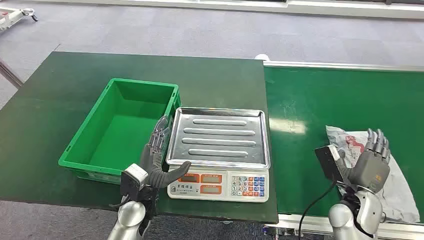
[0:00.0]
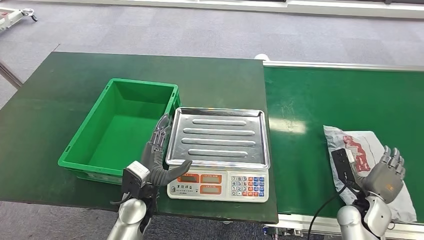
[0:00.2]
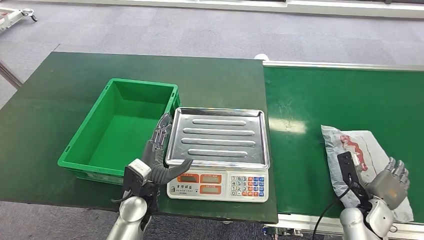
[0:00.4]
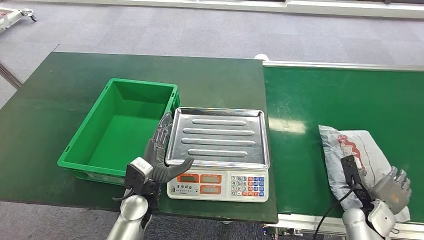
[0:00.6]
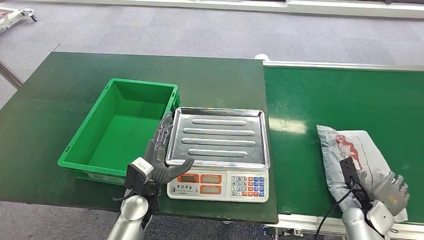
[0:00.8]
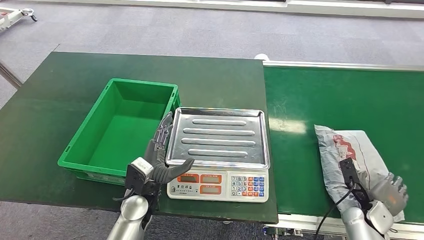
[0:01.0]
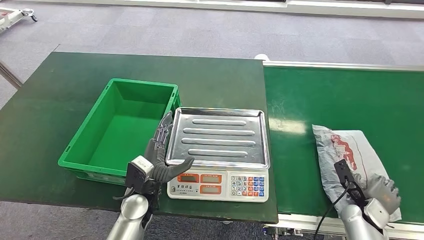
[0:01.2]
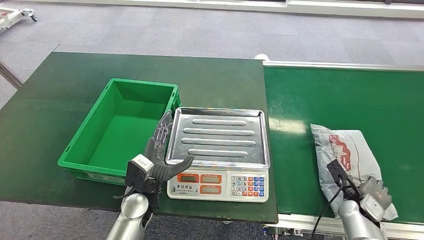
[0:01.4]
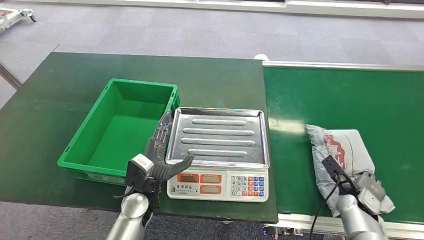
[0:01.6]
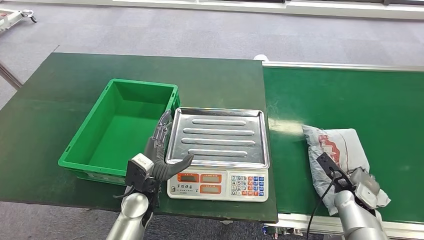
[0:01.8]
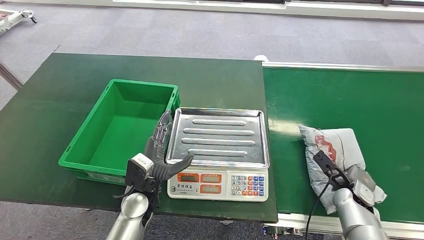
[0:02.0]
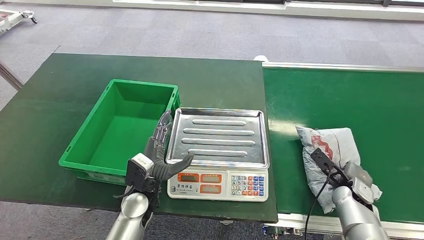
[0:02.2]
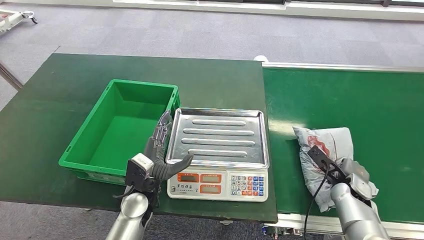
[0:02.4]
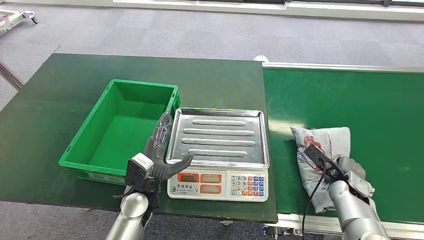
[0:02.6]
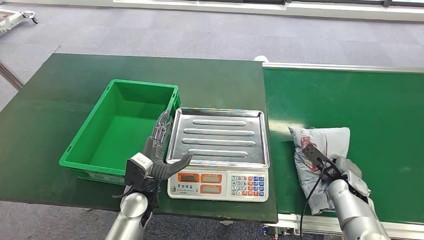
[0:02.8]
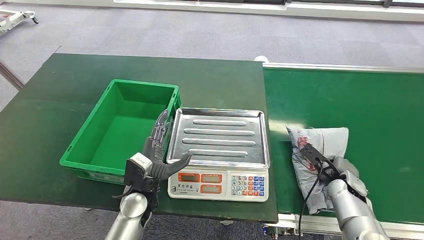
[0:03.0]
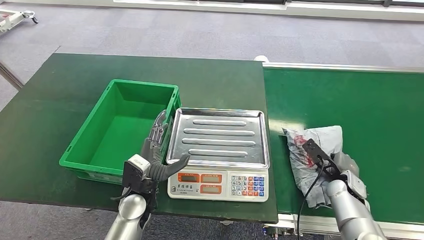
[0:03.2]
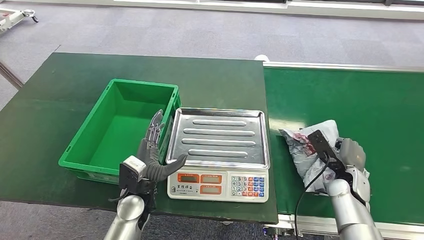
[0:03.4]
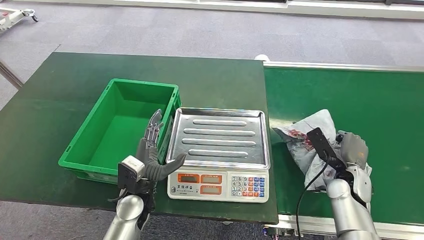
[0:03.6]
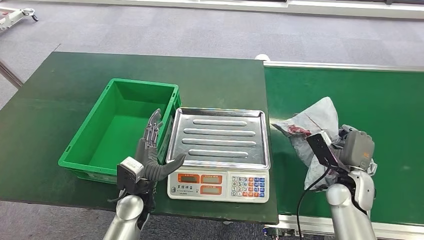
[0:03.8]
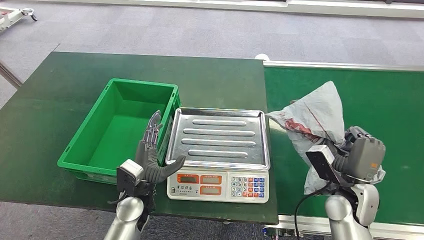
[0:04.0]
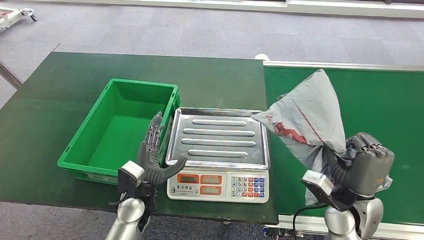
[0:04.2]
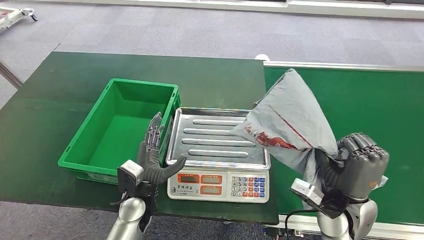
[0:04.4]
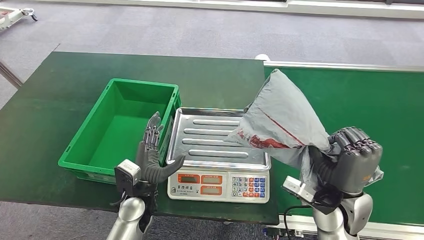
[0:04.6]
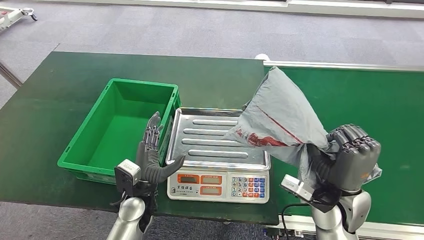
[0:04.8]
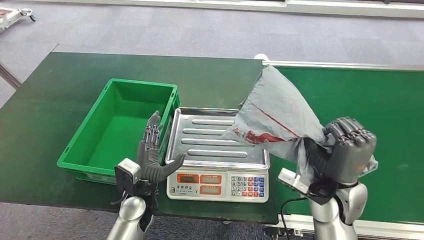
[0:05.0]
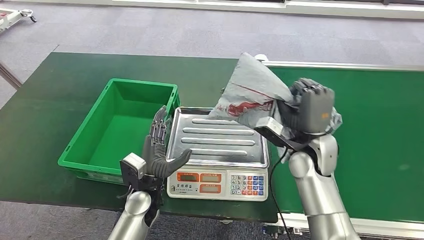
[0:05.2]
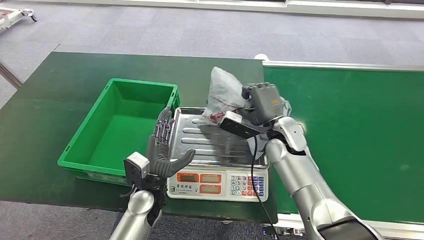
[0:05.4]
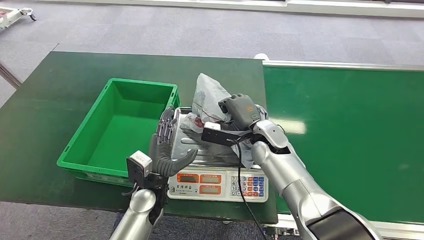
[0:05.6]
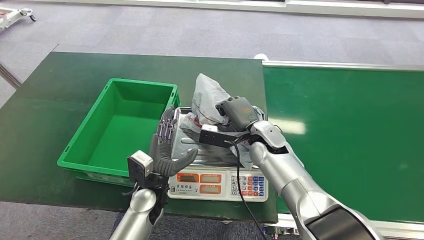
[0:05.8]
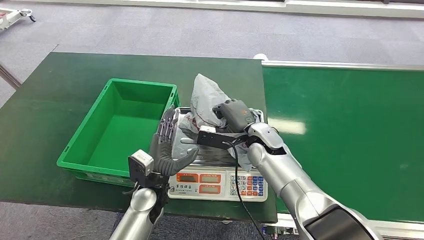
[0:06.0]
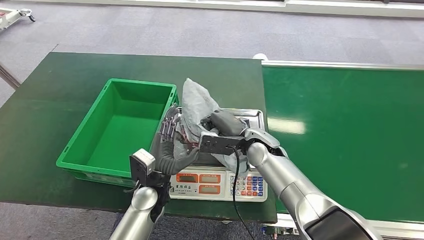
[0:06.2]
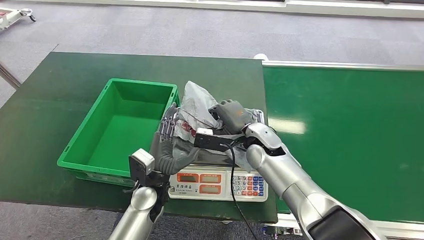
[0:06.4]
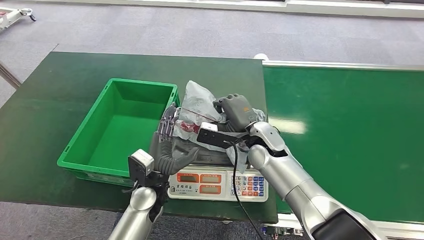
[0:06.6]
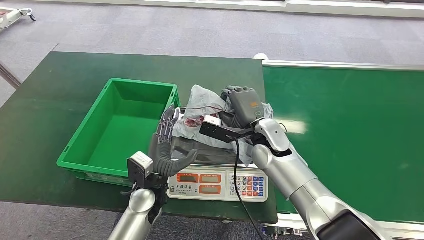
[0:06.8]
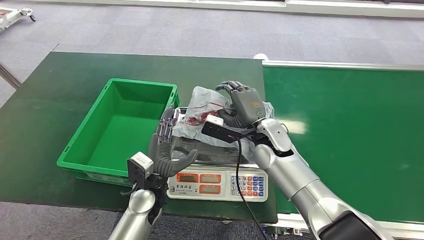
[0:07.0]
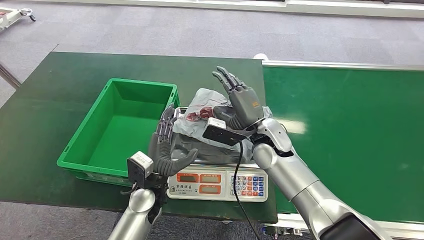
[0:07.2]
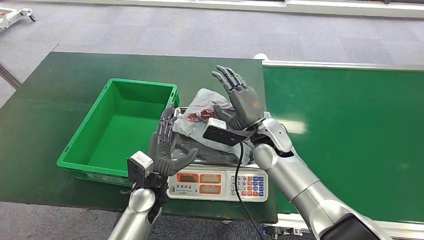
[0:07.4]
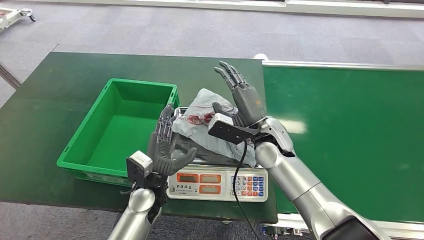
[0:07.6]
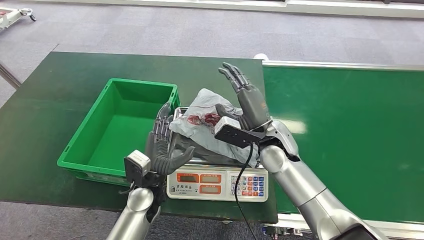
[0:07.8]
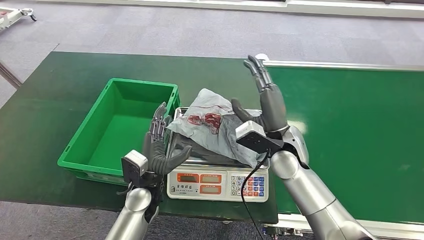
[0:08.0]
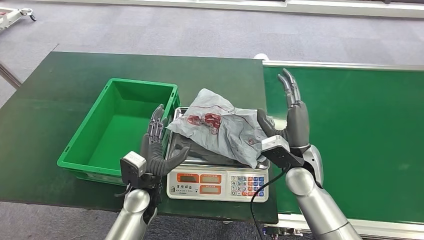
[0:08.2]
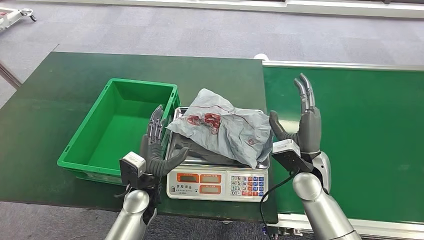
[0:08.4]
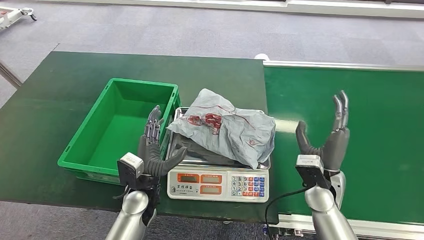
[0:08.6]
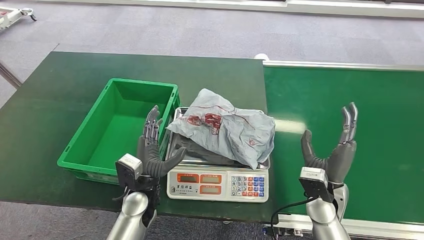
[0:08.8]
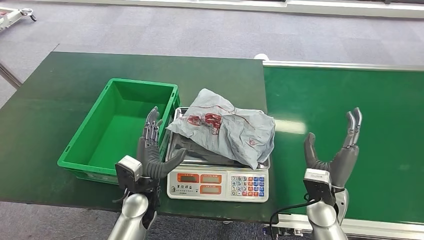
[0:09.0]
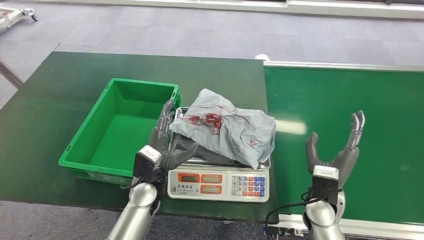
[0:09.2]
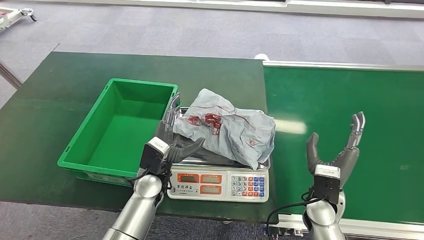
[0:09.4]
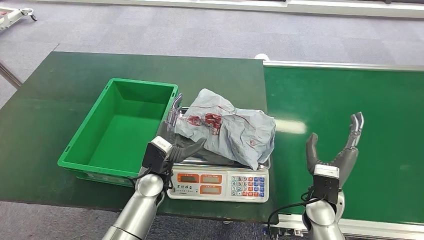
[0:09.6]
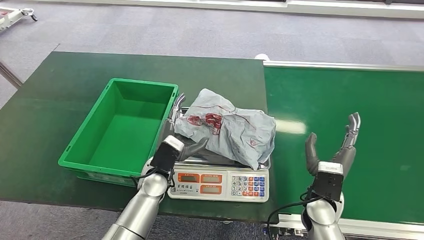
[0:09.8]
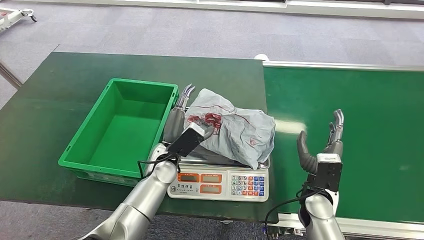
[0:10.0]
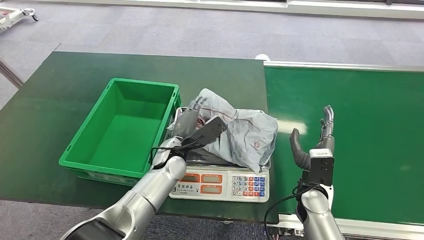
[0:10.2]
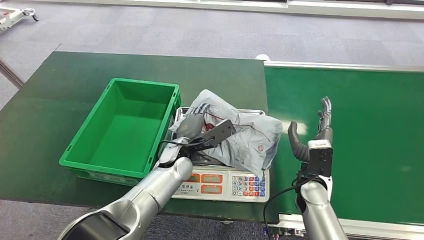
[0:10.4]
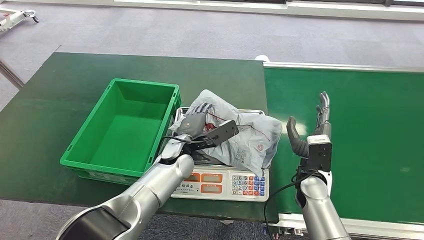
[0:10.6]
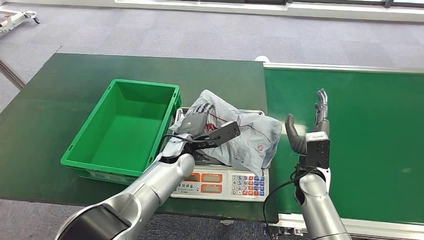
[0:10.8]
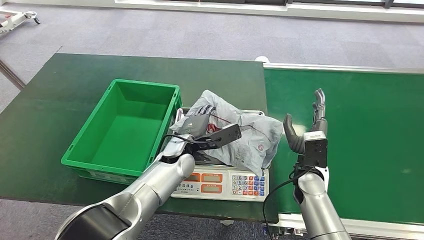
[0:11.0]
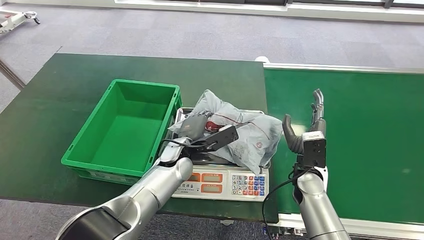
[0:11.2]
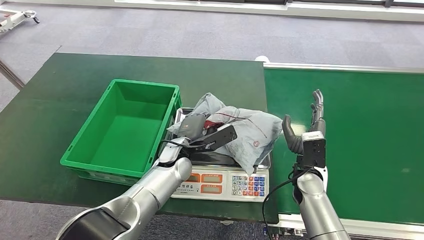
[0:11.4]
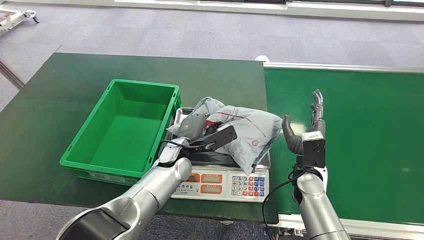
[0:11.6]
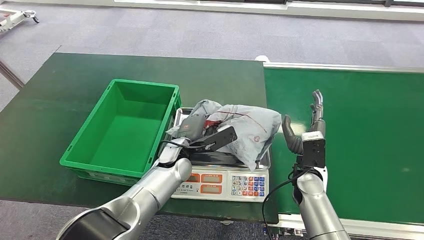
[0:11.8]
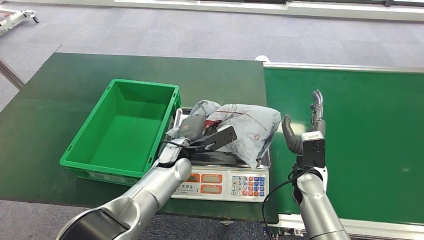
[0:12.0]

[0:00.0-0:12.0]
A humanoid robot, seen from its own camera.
Step, 0:00.0 to 0:04.0: Pick up the package from the conveyor belt.
Step, 0:04.2 to 0:07.8: Place the package onto the inbound machine.
0:01.6 to 0:03.0: The right hand moves roughly 5 cm.
0:07.6 to 0:09.0: The right hand travels to the right, backward and downward by about 20 cm.
0:09.0 to 0:10.4: The left hand goes about 10 cm forward and to the right.
0:10.4 to 0:12.0: There are only small adjustments of the hands.

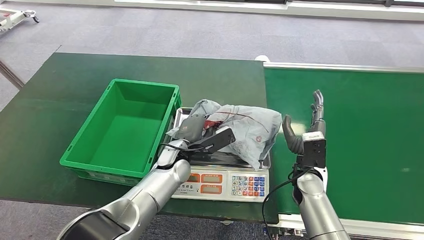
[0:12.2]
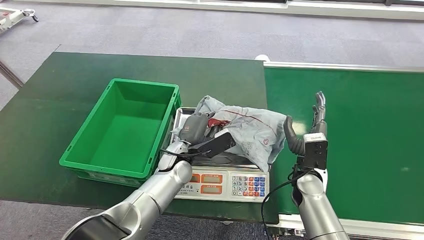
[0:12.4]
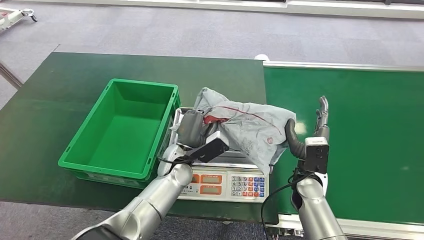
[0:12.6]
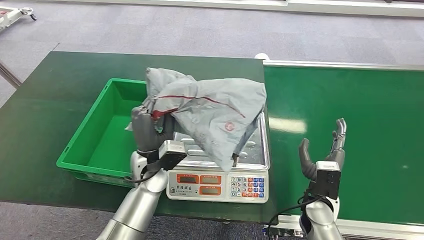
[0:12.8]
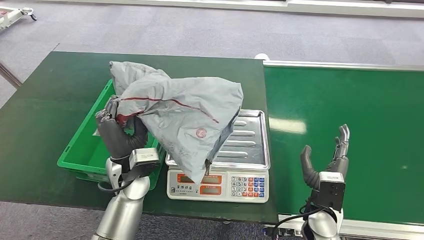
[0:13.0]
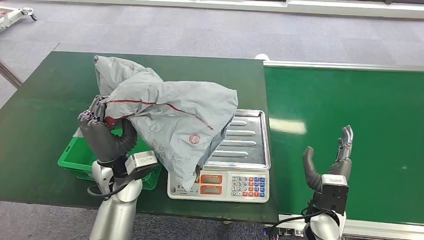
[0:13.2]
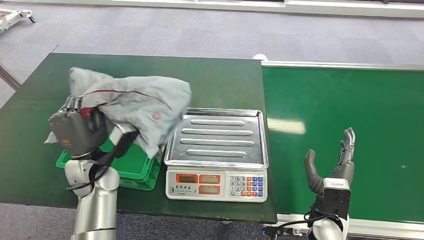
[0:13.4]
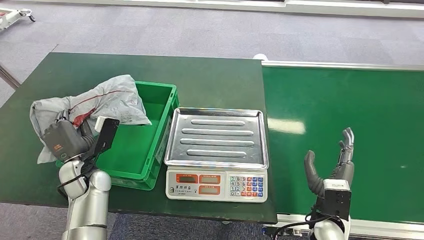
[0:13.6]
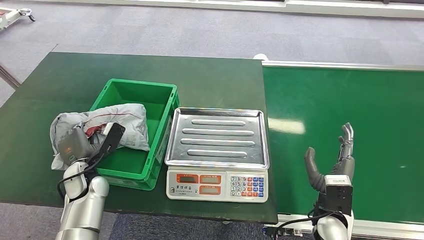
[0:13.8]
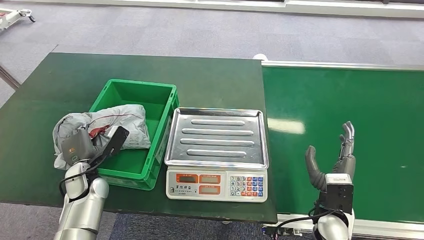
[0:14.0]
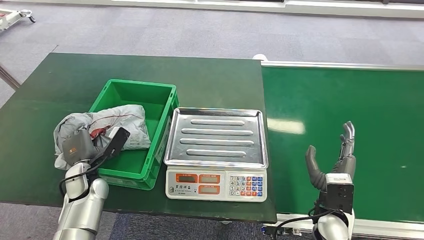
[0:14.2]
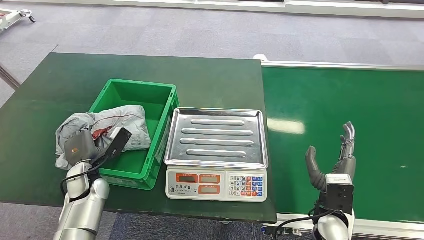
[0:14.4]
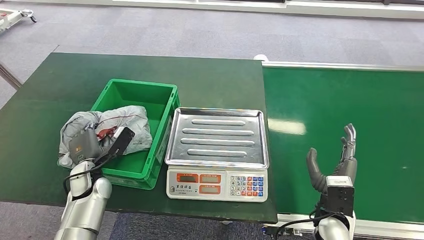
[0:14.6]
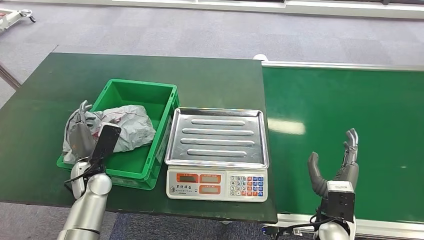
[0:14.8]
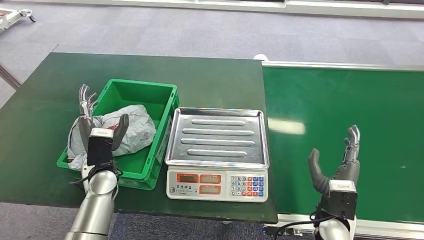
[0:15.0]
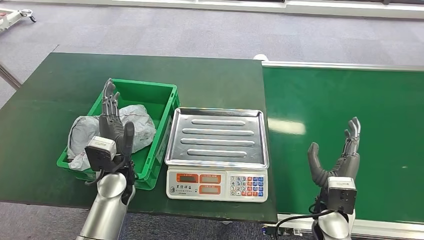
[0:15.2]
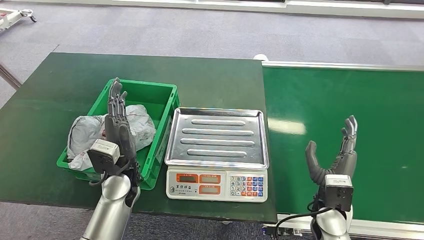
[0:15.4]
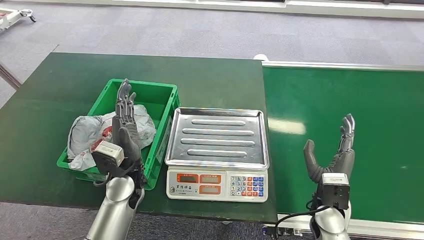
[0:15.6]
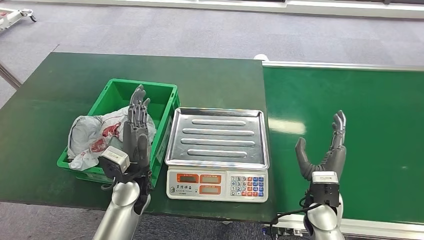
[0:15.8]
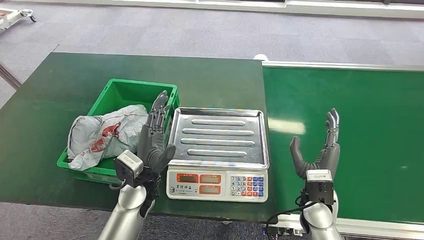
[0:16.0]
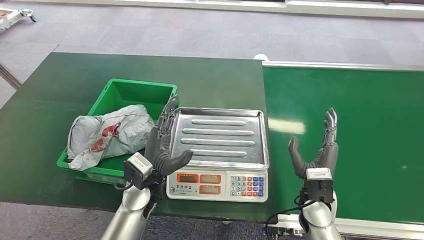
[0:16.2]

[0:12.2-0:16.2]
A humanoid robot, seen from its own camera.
Step, 0:13.0 to 0:16.0: Place the package into the parcel locker.
0:14.8 to 0:16.2: The left hand goes about 15 cm to the right. Meanwhile the right hand ends up roughly 5 cm from where it was.
